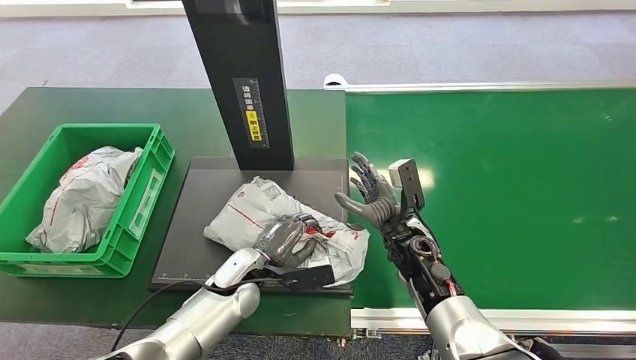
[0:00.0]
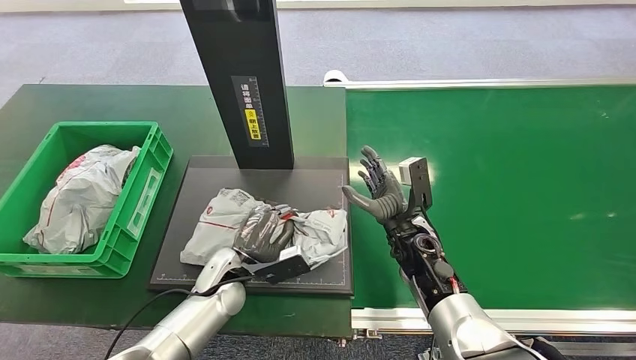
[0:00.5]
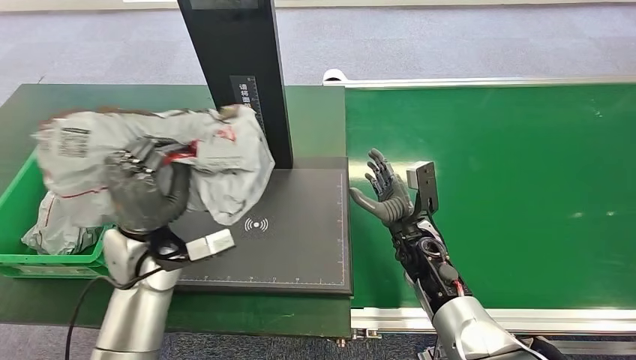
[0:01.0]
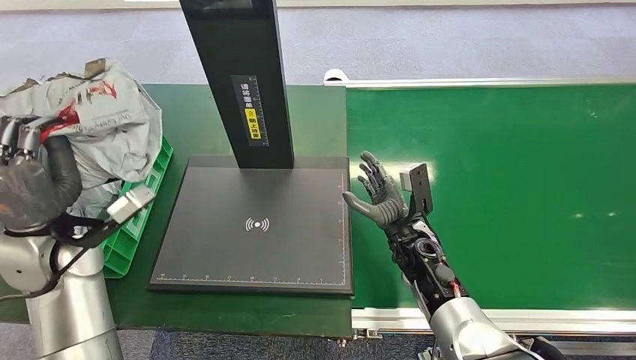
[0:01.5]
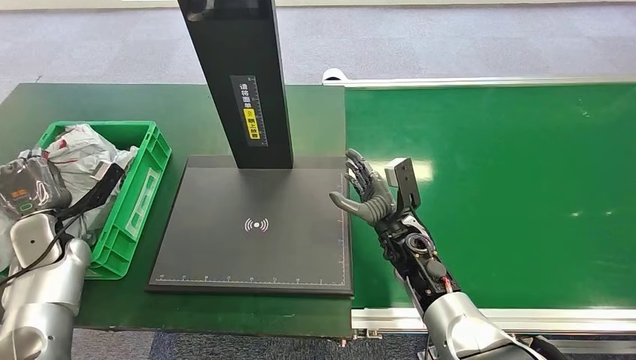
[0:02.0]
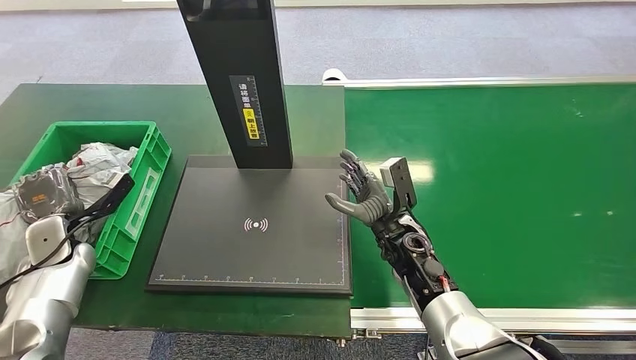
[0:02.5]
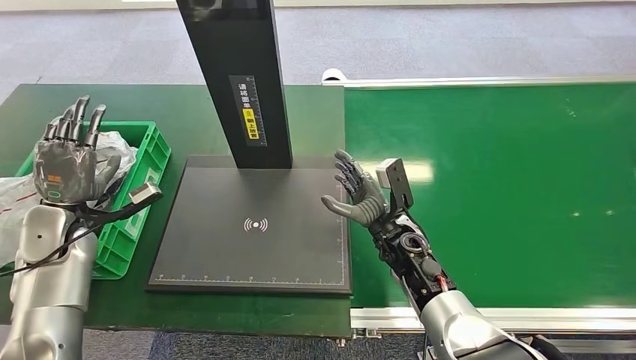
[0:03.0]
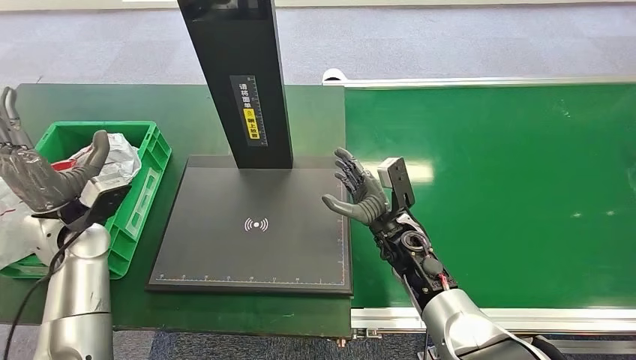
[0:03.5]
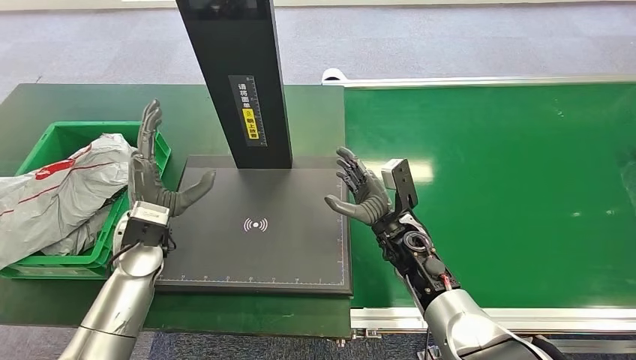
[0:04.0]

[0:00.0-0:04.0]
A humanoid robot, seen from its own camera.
Step, 0:02.0 to 0:04.0: Place the package into the parcel locker.
0:02.0 to 0:04.0: The left hand goes some 20 cm to the right.
